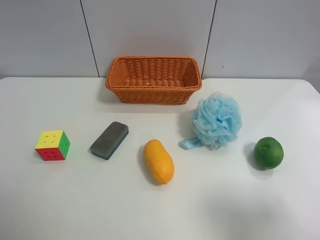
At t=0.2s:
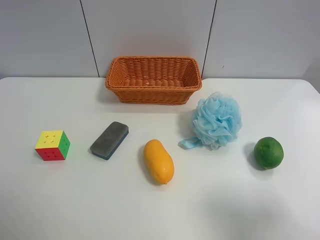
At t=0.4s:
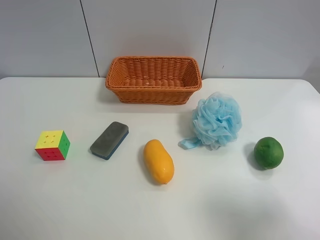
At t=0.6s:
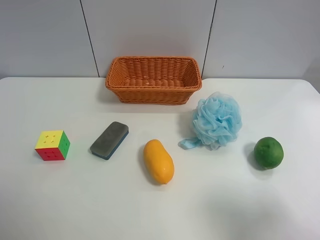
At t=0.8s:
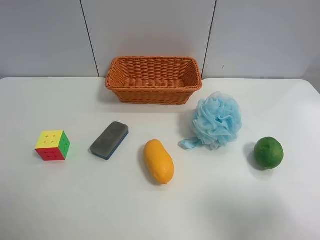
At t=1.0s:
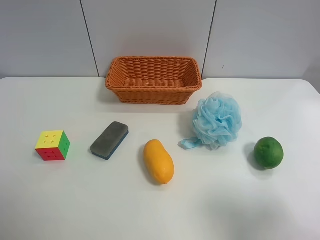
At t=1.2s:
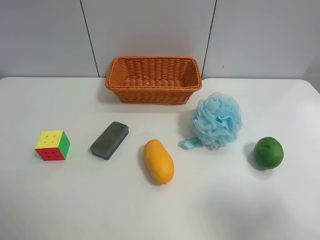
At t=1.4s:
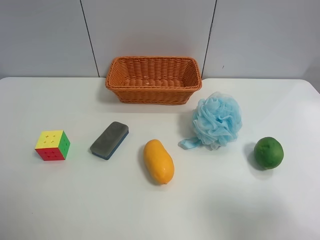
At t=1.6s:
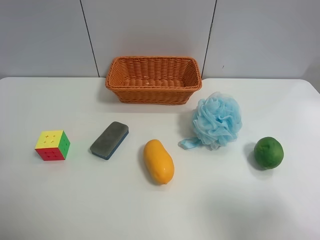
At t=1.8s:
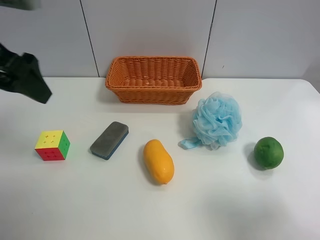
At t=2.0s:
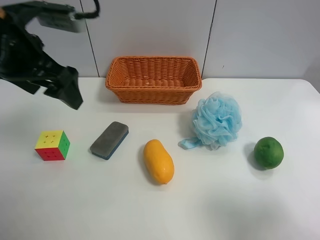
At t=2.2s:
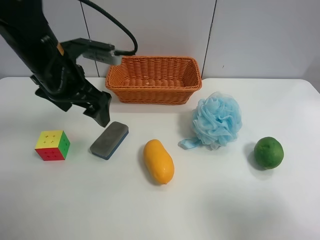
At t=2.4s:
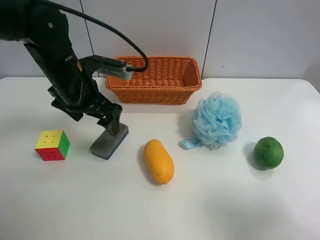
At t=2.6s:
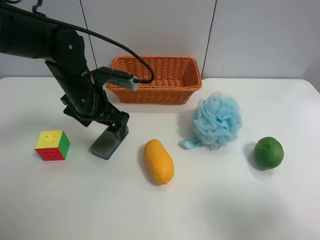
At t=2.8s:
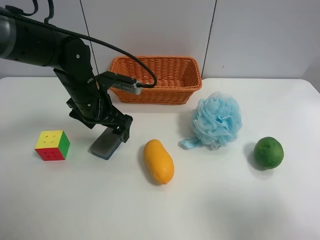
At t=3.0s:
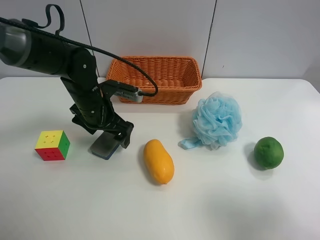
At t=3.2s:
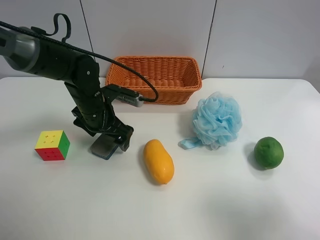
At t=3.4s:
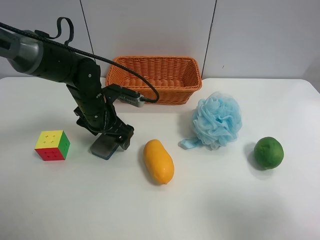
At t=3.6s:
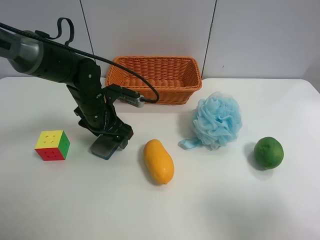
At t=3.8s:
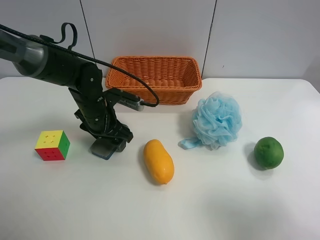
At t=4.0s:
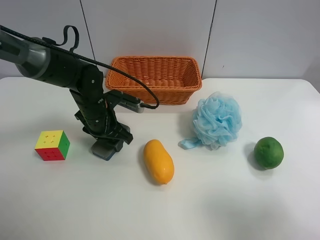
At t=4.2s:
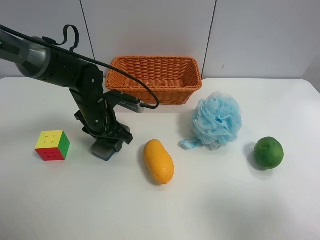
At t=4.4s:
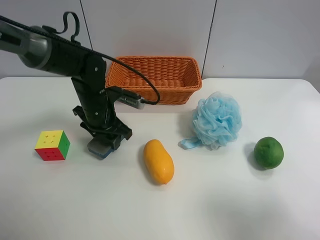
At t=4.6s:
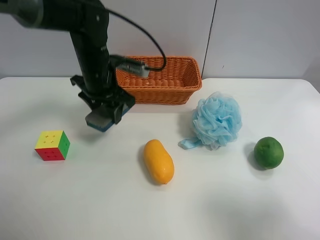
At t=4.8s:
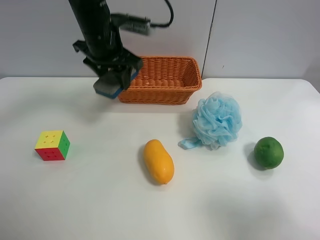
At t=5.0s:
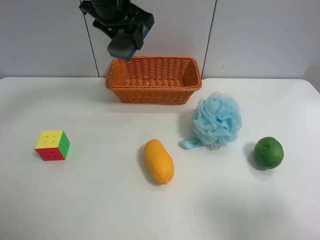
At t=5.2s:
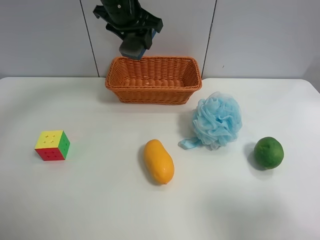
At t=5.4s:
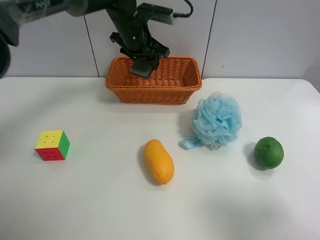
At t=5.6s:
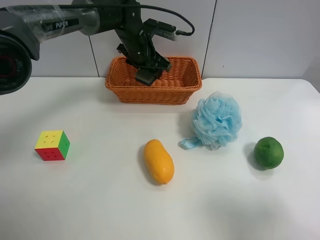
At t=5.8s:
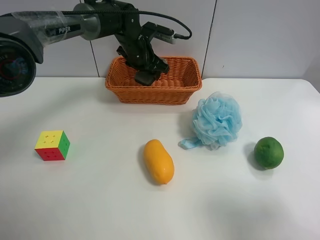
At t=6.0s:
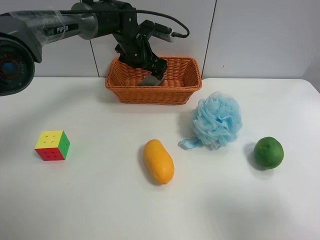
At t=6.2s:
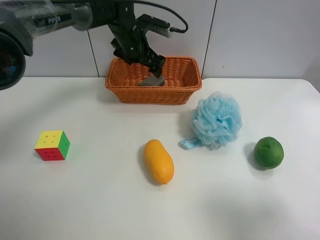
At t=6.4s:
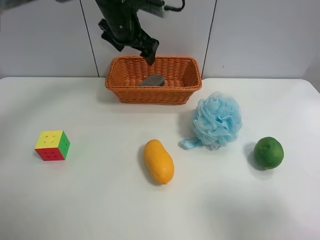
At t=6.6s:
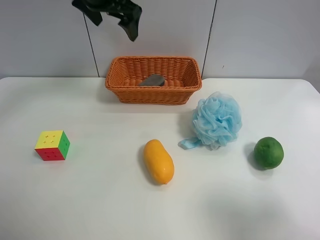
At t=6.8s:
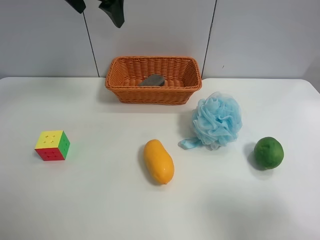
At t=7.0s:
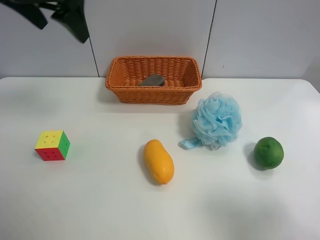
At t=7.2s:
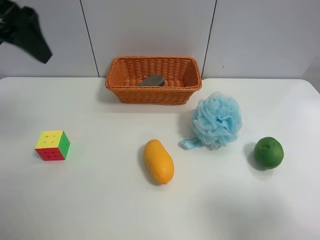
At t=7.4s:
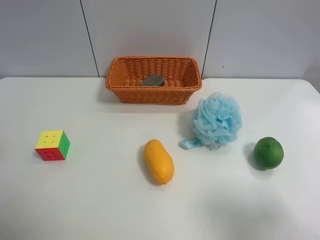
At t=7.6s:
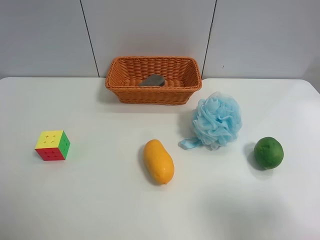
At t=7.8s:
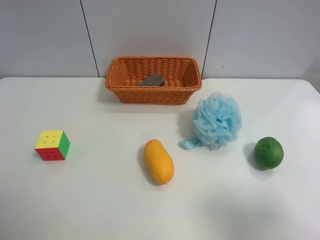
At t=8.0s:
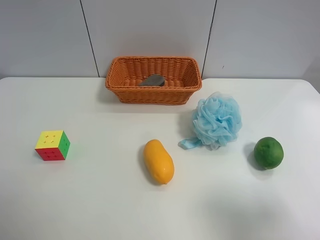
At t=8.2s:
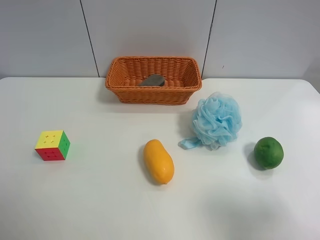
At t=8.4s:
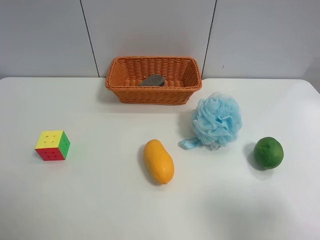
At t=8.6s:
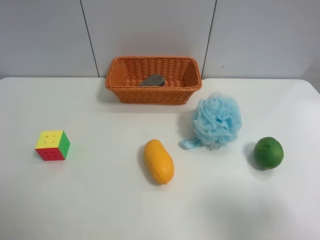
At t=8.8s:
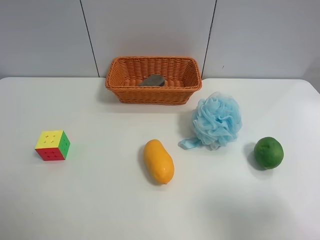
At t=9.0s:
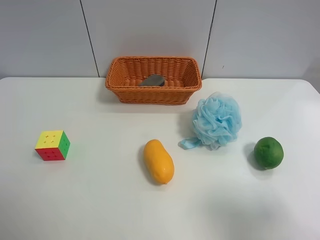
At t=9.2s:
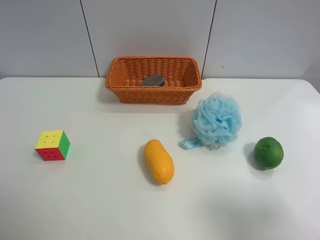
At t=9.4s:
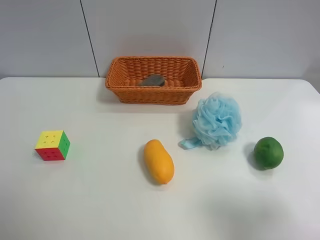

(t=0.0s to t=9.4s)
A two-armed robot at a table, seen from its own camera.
Task of the whole recording: use the left gripper to grab items from the table and place them in the basket.
Step, t=0.0s - t=3.6s: Grasp the chalkboard eraser with the left gripper.
Step, t=3.8s - t=6.2s: Place the chalkboard eraser into the basket with the left gripper.
t=1.6s - t=3.2s: The left gripper goes about 35 cm downward, forward and to the right.
t=3.2s - t=4.8s: The left gripper travels upward by about 15 cm, and closes its fingers.
t=4.8s - t=6.2s: The left gripper shifts some 10 cm forward and downward, and opens up.
t=6.2s - t=7.8s: The left gripper goes some 50 cm backward and to the left.
